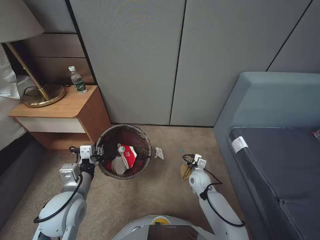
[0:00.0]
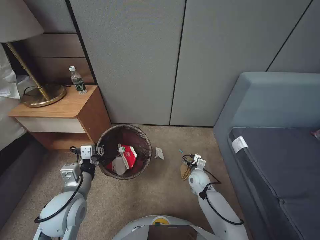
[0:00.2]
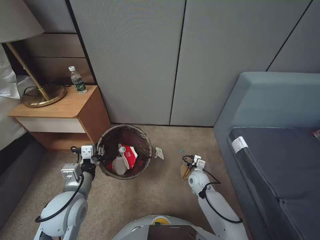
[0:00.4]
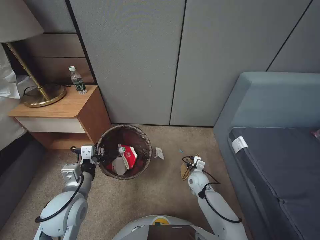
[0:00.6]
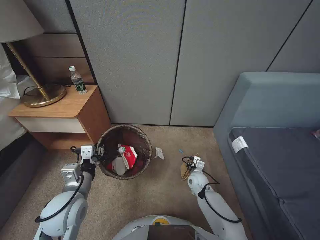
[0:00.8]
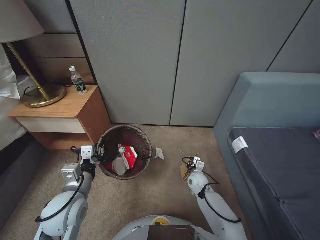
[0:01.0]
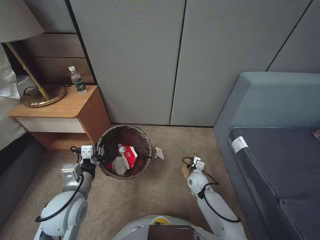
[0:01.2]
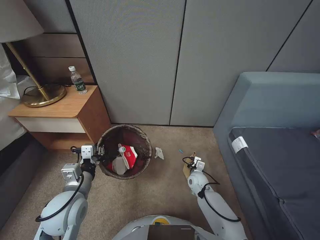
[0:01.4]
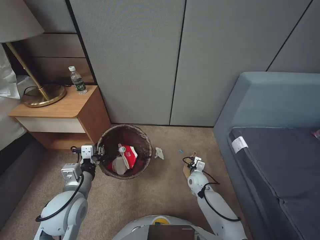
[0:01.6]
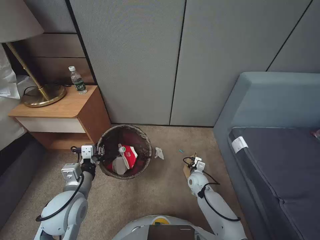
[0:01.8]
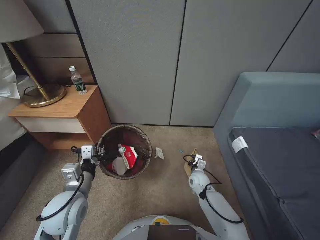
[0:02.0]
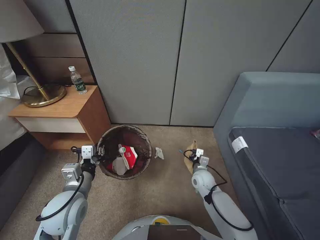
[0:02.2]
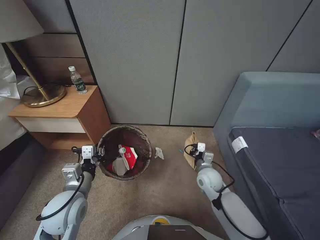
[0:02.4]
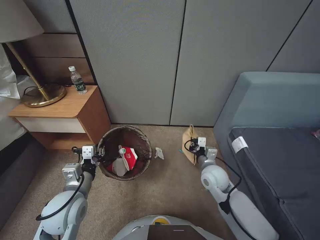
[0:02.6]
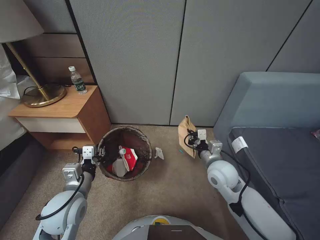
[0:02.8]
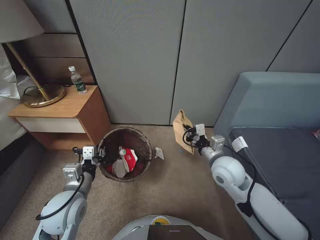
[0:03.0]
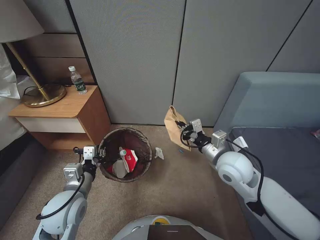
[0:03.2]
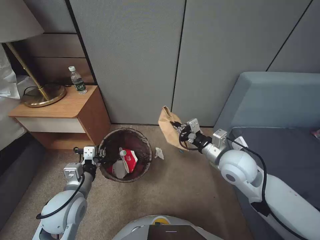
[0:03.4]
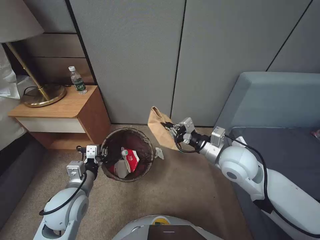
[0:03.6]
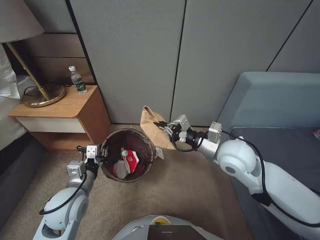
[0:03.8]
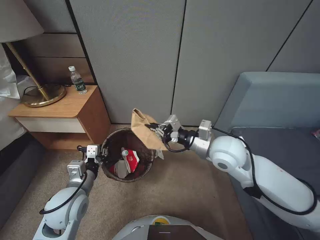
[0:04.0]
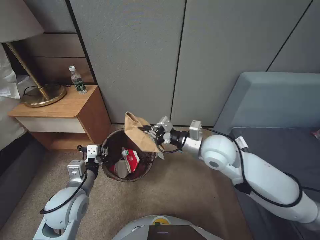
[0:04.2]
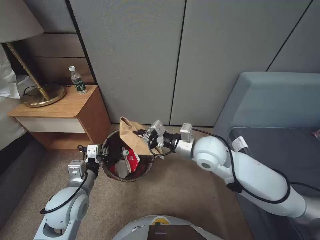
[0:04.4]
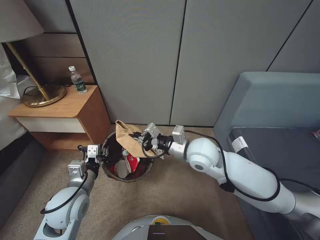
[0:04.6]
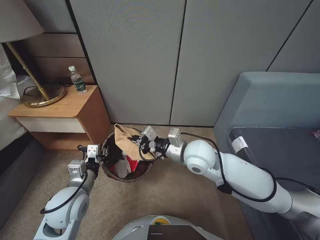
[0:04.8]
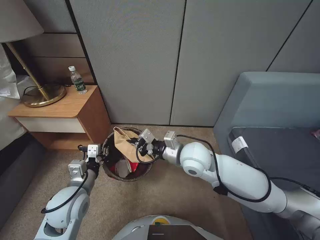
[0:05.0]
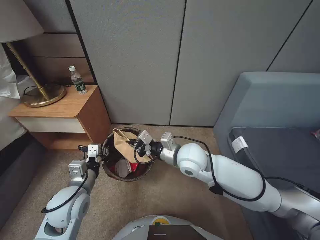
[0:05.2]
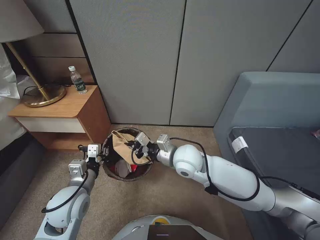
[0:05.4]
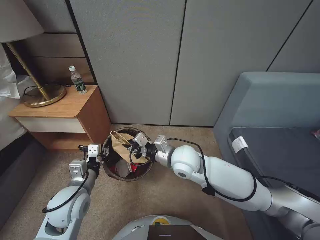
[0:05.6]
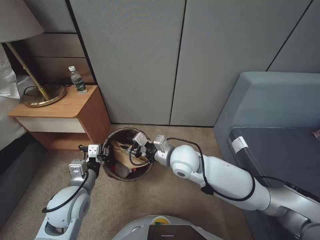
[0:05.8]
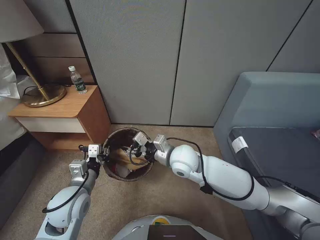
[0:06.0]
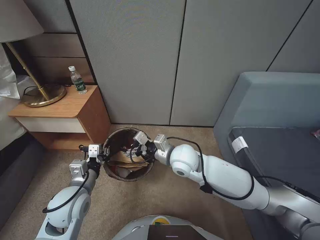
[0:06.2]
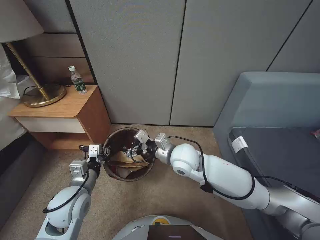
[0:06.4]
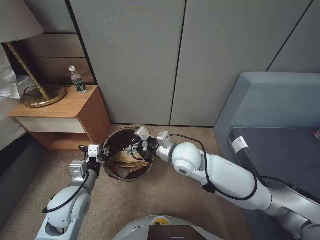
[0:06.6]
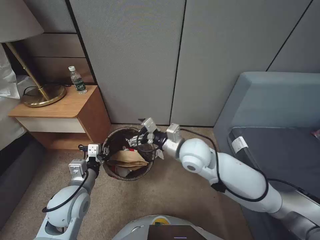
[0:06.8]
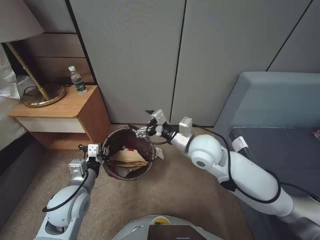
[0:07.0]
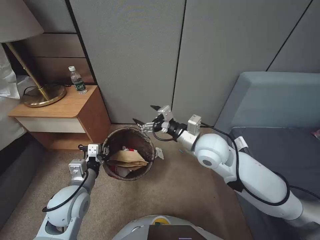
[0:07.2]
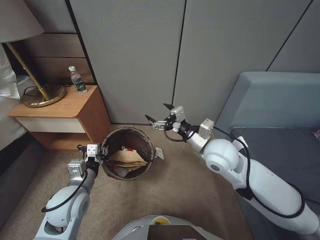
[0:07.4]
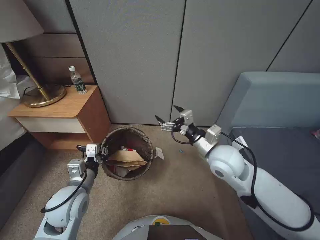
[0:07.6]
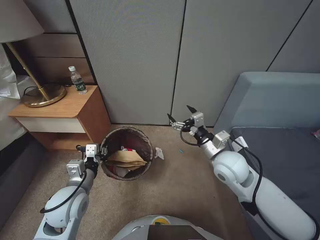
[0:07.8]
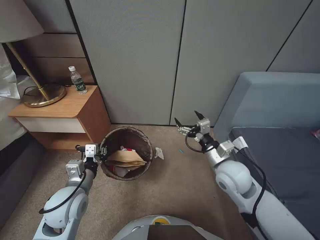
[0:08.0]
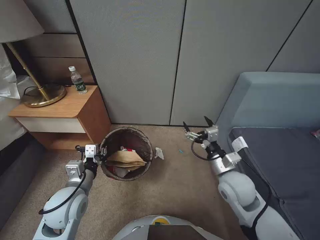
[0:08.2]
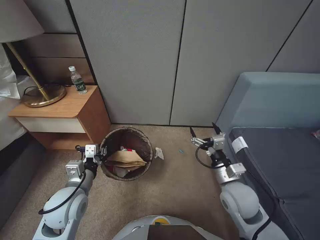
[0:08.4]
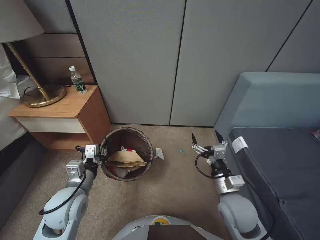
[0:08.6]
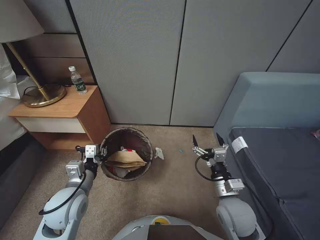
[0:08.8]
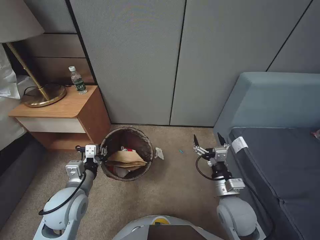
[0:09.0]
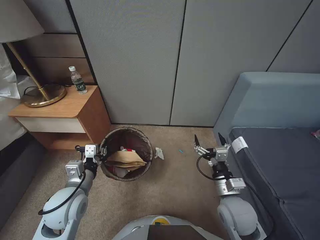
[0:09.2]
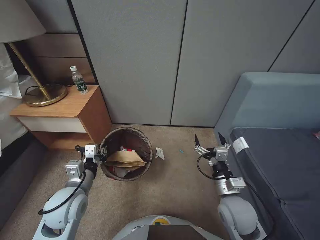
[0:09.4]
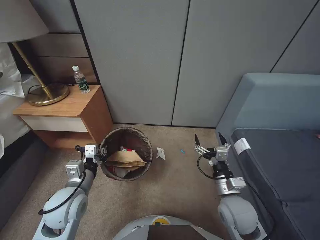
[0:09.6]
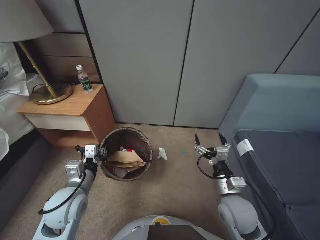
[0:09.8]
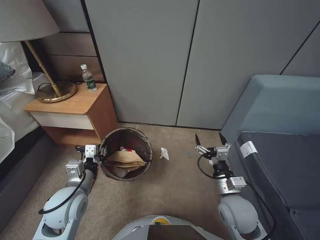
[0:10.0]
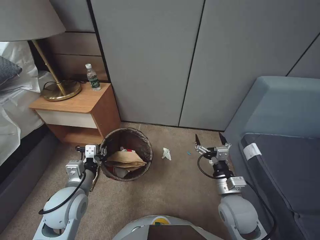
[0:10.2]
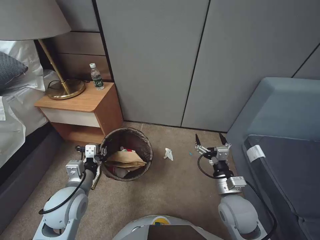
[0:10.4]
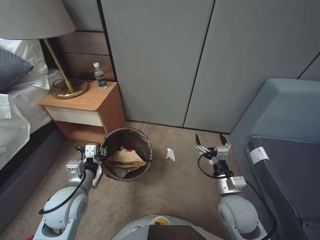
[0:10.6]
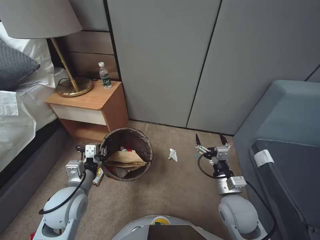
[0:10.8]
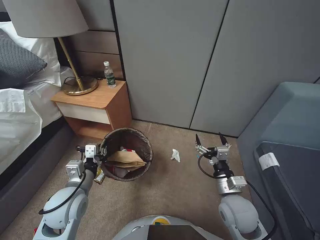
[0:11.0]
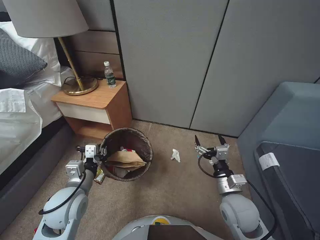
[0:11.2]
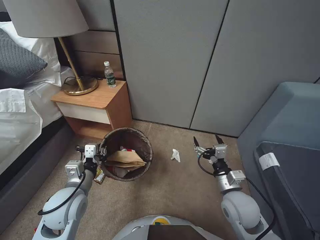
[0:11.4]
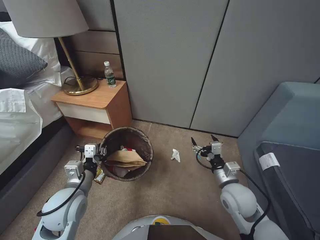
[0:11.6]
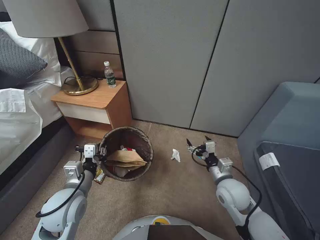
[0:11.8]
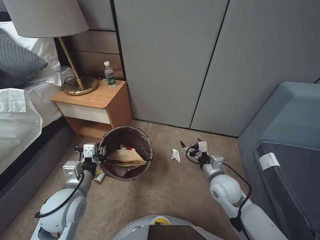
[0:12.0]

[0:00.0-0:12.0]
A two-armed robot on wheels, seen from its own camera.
Task of the whole recording: Pick up the trash bin, then pick up the garbage from the floor and place it into the trash bin.
0:00.0 to 0:01.6: The right gripper closes up.
0:01.6 to 0:03.0: The right gripper shifts some 25 cm upward.
0:03.0 to 0:04.4: The right gripper is displaced upward and to the left by approximately 10 cm.
0:04.4 to 0:06.0: The right gripper is displaced to the left and downward by approximately 10 cm, and opens its fingers.
0:06.0 to 0:07.6: The right gripper heads to the right, covering about 10 cm, and opens up.
0:07.6 to 0:09.0: The right gripper shifts approximately 15 cm downward and backward.
0:10.4 to 0:12.0: The right gripper is displaced forward by roughly 5 cm.

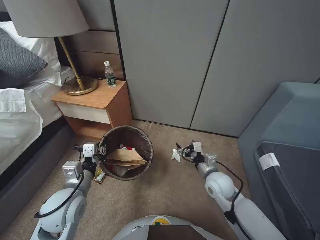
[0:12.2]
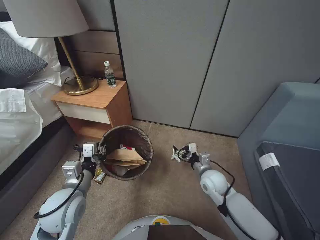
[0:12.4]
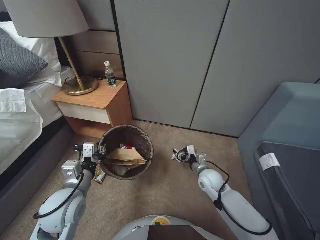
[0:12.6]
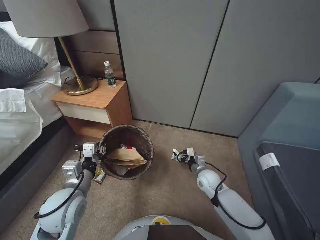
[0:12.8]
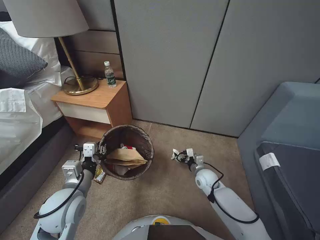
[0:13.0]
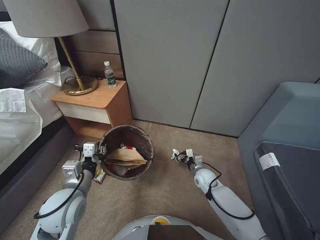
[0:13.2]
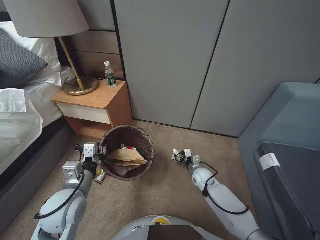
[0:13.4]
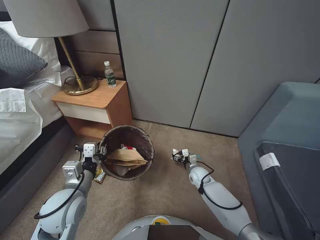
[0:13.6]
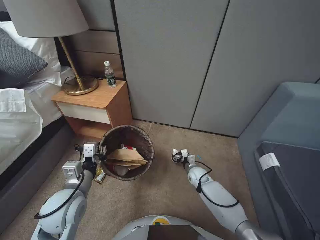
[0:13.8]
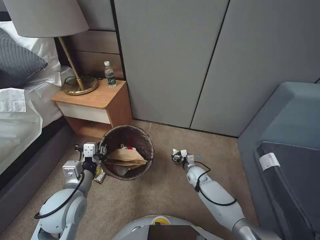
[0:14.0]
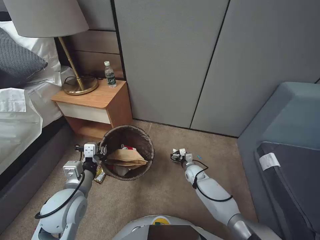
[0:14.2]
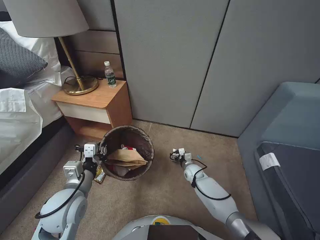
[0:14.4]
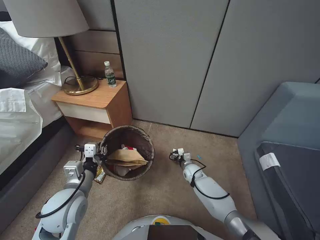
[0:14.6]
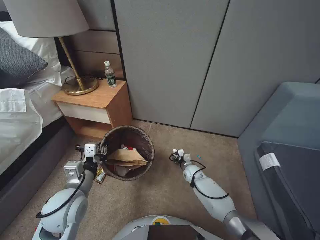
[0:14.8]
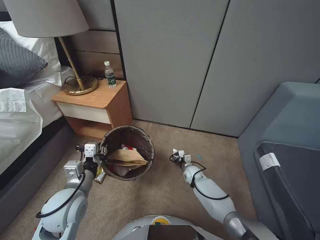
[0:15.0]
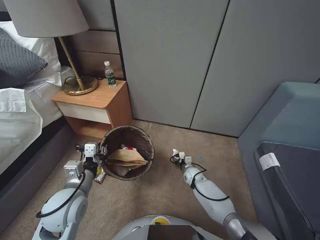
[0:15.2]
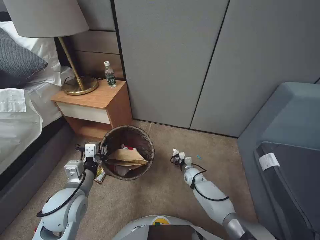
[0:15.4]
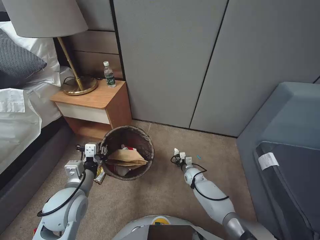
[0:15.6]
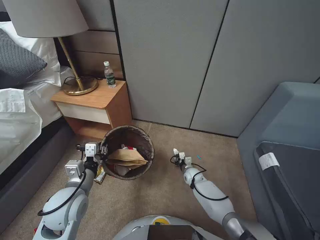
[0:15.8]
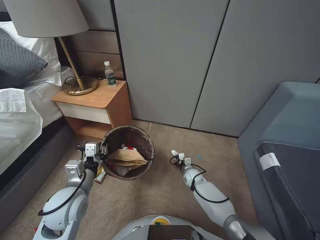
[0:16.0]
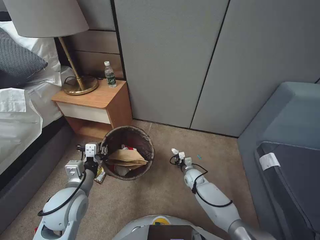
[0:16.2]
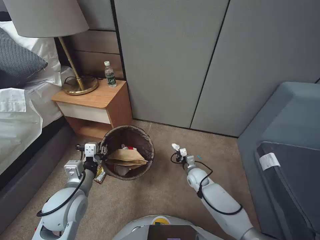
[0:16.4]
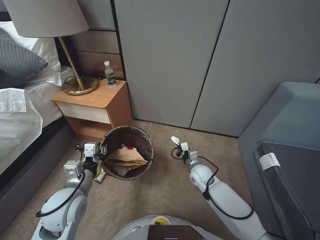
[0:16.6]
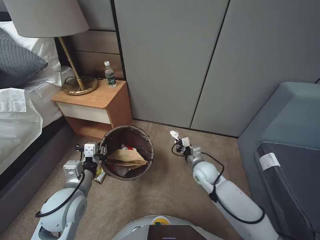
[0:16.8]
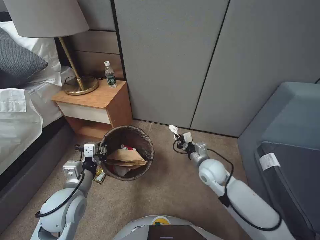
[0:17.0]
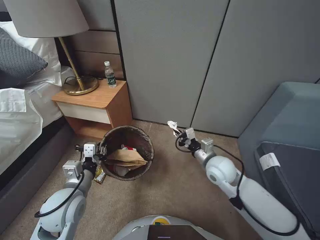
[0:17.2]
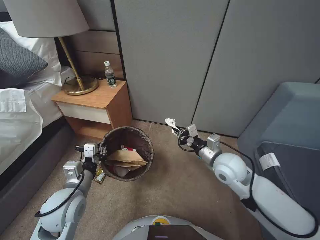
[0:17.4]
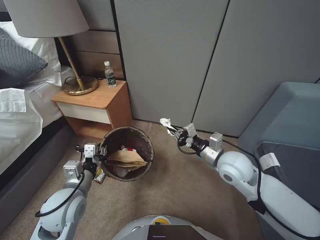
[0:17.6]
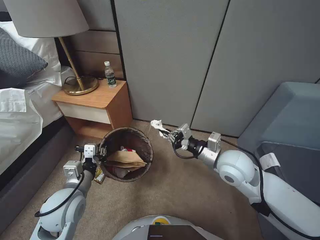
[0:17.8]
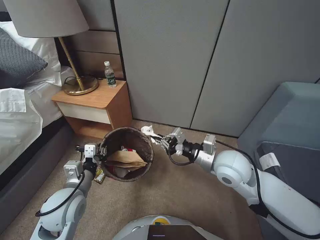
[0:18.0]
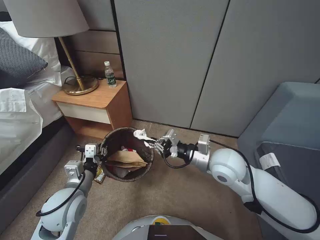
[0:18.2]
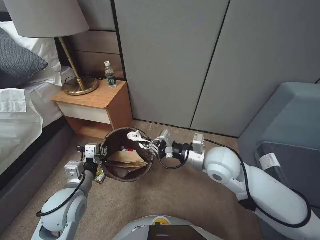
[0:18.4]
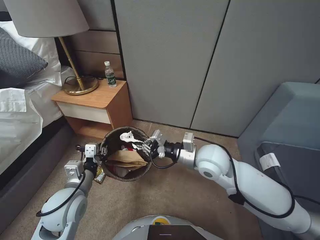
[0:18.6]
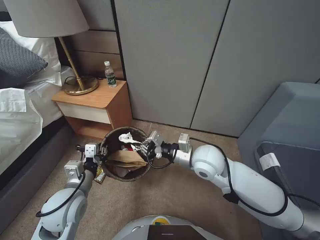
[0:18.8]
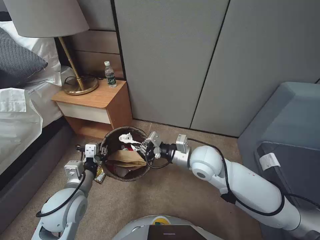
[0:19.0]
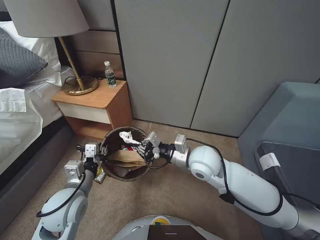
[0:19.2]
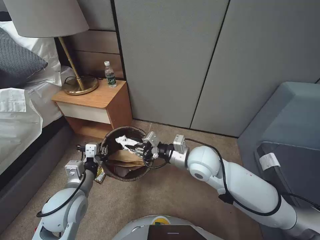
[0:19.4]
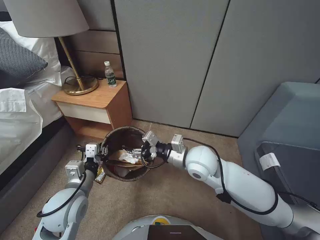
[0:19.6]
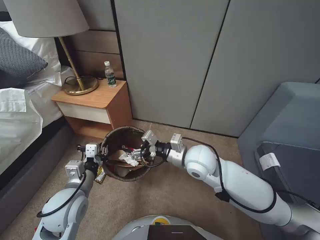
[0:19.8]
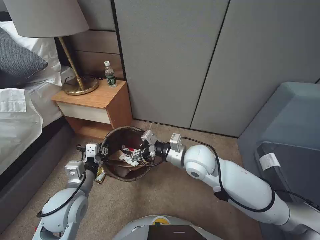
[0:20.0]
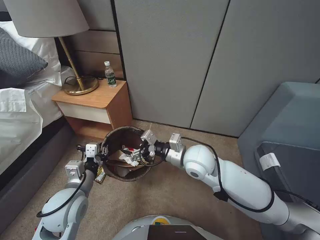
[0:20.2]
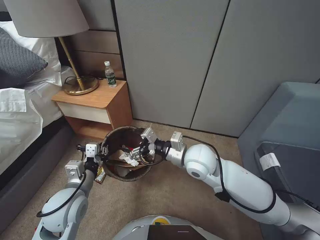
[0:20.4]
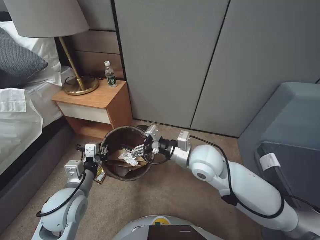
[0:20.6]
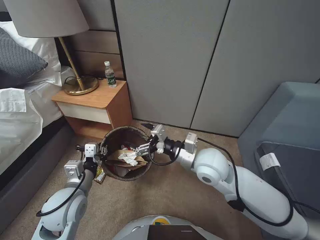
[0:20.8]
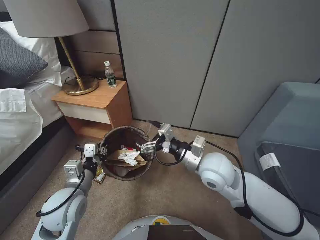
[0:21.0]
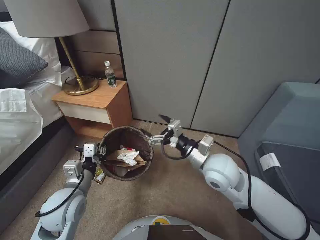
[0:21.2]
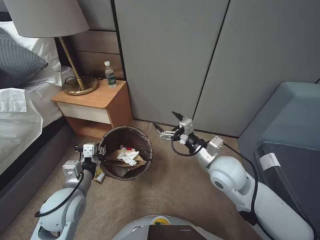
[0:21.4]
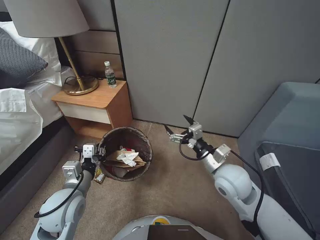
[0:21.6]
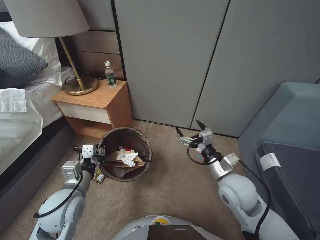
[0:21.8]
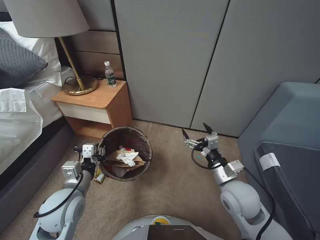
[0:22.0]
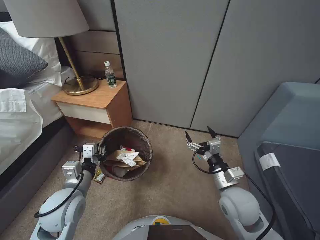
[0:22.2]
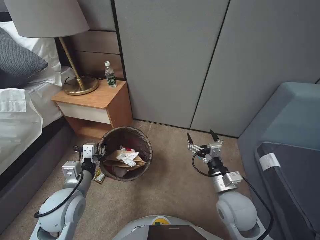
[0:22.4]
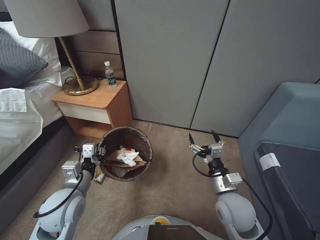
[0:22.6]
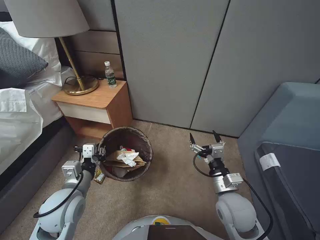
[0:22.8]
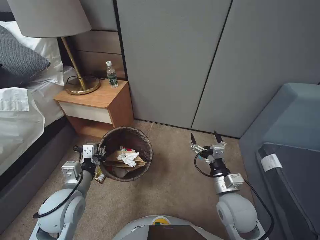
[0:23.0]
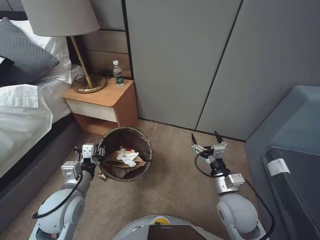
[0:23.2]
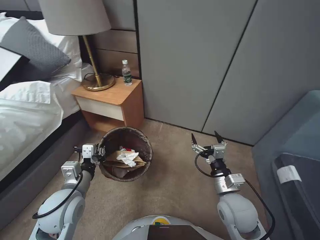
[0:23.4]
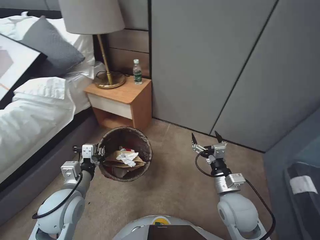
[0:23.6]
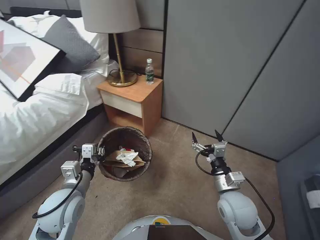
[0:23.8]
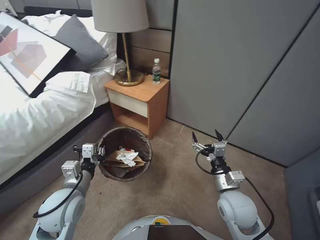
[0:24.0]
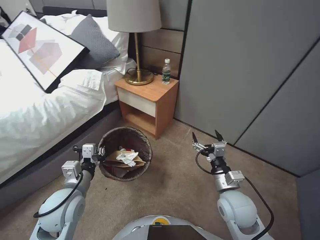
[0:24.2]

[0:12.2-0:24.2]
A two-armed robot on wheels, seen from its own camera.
Task of the whole recording: Pick up the trash bin, then pick up the garbage from the floor and place it into the trash bin.
0:12.2 to 0:13.8: The right gripper is displaced downward and forward by about 20 cm.
0:13.8 to 0:15.2: The right gripper shifts by approximately 5 cm, and closes.
0:15.2 to 0:16.6: The right gripper goes some 10 cm upward, and closes.
0:16.6 to 0:18.2: The right gripper travels upward by some 25 cm.
0:18.2 to 0:19.8: The right gripper heads to the left, covering roughly 10 cm, and opens.
0:19.8 to 0:21.2: The right gripper moves roughly 5 cm.
0:21.2 to 0:22.6: The right gripper goes approximately 15 cm downward, backward and to the right.
